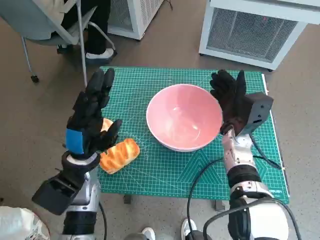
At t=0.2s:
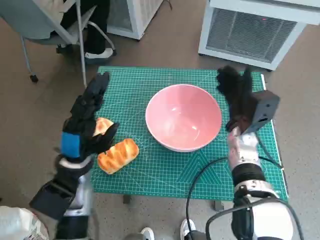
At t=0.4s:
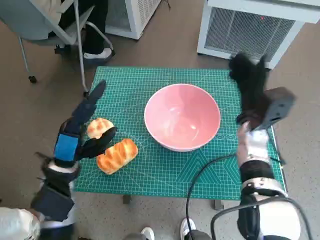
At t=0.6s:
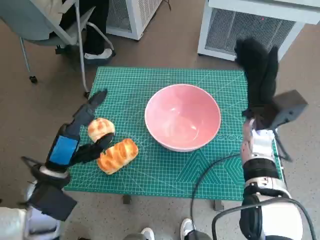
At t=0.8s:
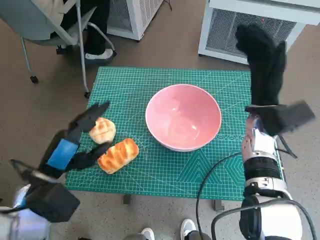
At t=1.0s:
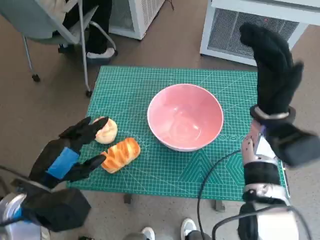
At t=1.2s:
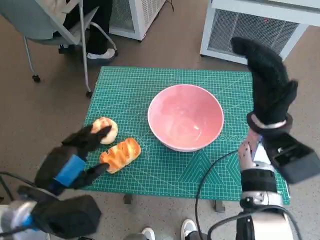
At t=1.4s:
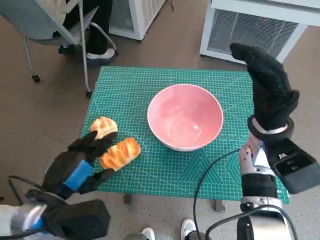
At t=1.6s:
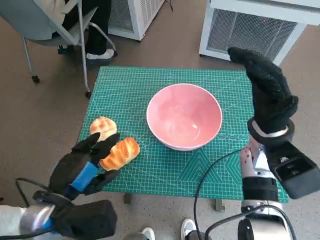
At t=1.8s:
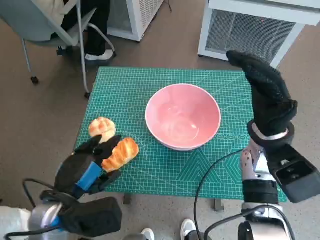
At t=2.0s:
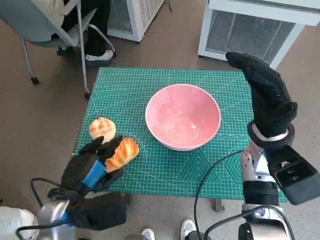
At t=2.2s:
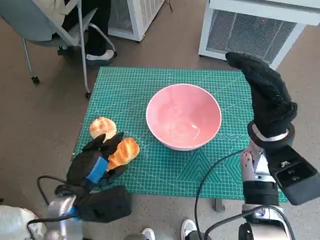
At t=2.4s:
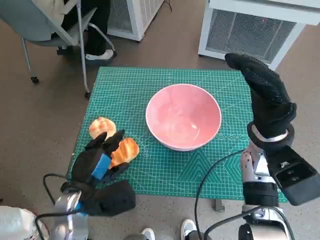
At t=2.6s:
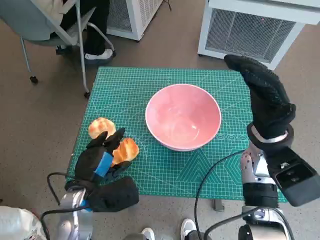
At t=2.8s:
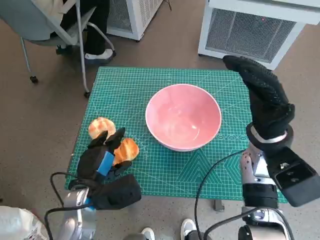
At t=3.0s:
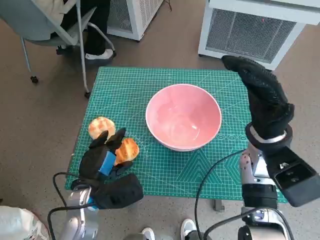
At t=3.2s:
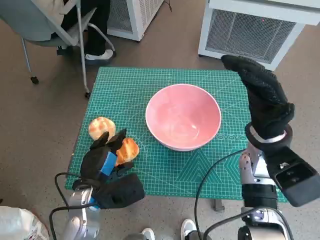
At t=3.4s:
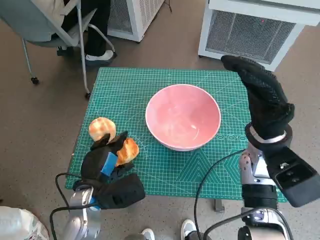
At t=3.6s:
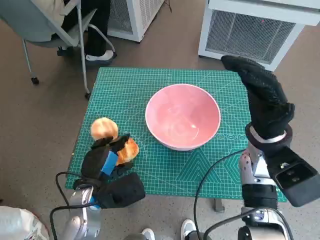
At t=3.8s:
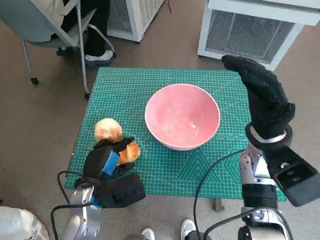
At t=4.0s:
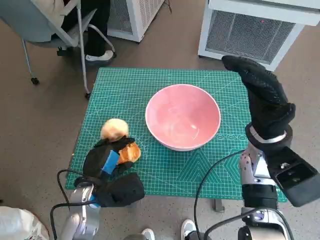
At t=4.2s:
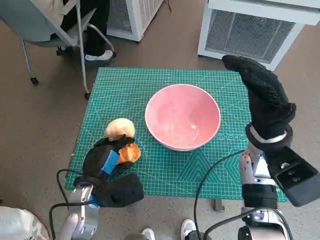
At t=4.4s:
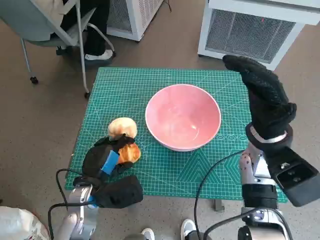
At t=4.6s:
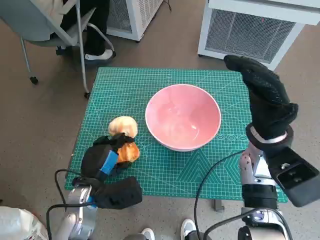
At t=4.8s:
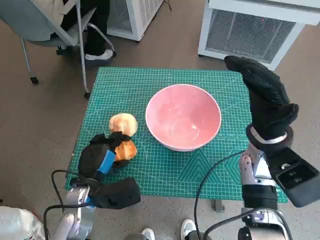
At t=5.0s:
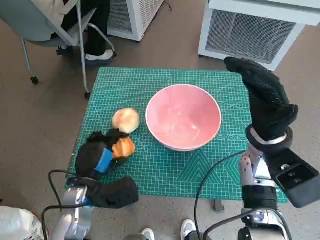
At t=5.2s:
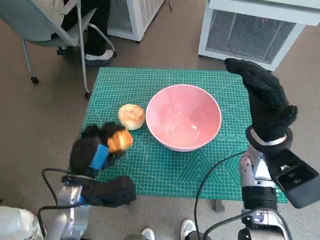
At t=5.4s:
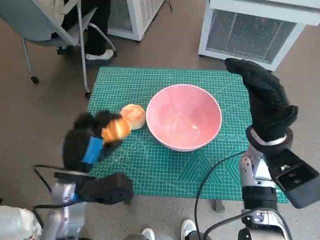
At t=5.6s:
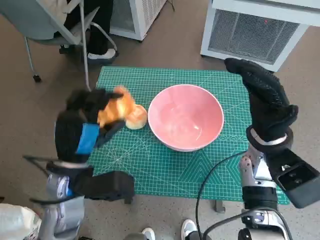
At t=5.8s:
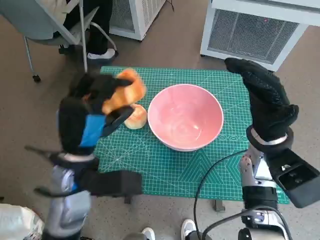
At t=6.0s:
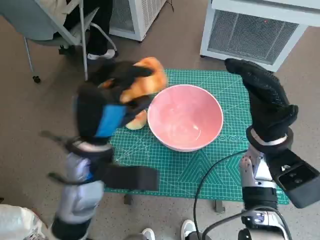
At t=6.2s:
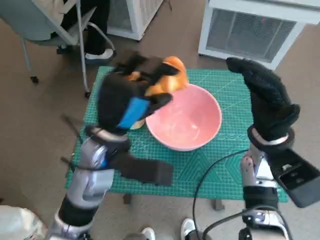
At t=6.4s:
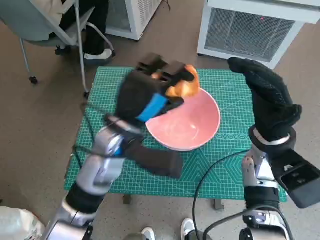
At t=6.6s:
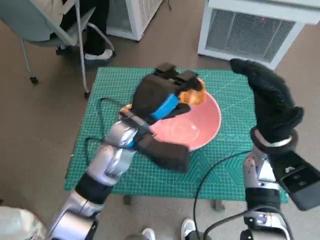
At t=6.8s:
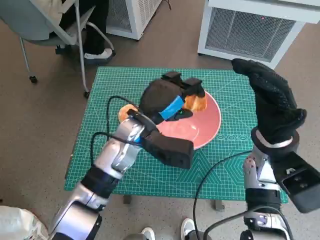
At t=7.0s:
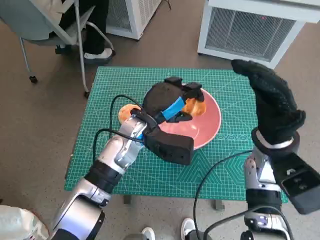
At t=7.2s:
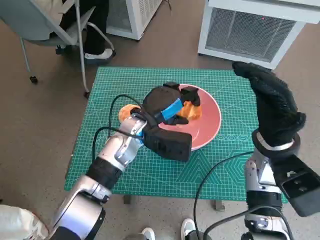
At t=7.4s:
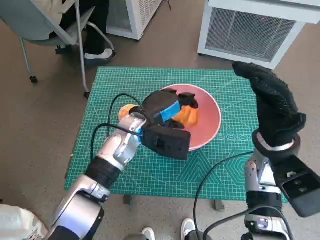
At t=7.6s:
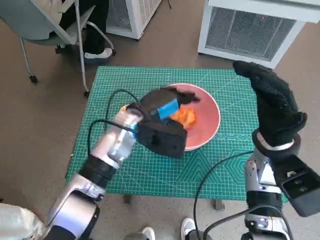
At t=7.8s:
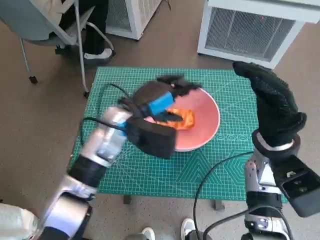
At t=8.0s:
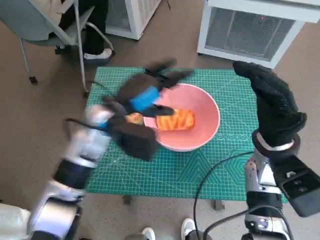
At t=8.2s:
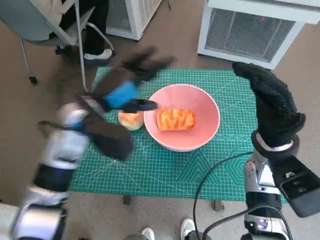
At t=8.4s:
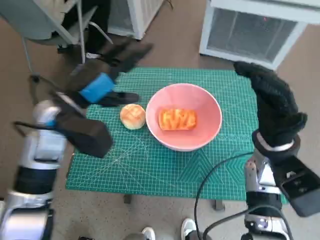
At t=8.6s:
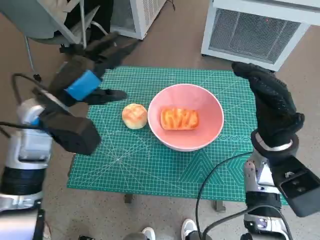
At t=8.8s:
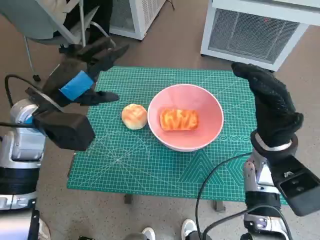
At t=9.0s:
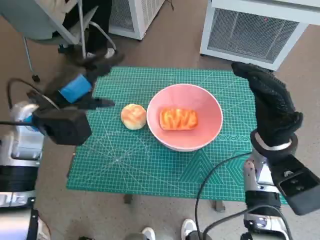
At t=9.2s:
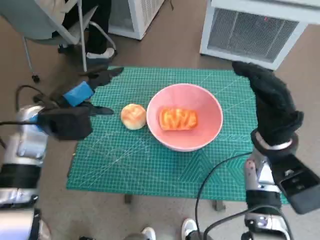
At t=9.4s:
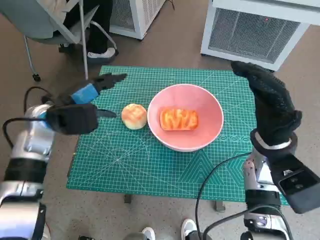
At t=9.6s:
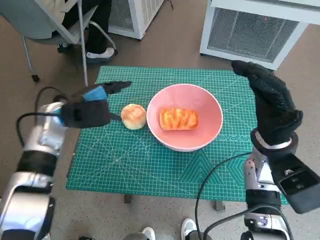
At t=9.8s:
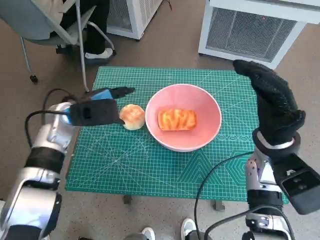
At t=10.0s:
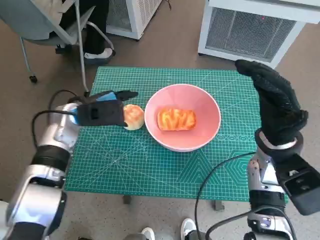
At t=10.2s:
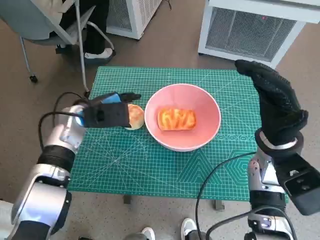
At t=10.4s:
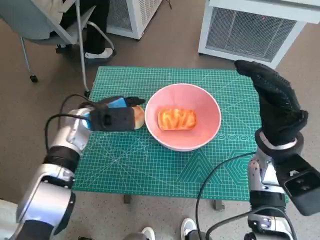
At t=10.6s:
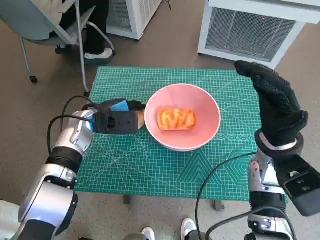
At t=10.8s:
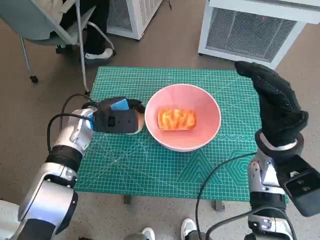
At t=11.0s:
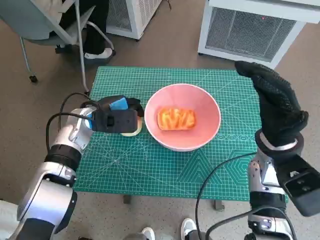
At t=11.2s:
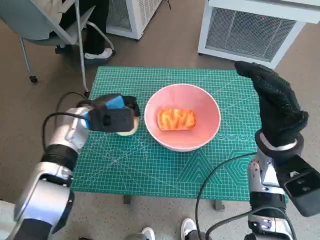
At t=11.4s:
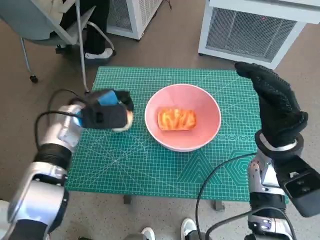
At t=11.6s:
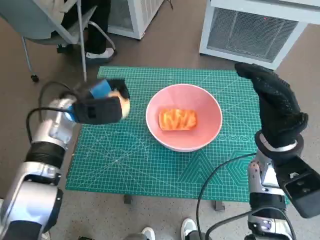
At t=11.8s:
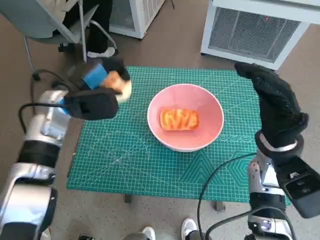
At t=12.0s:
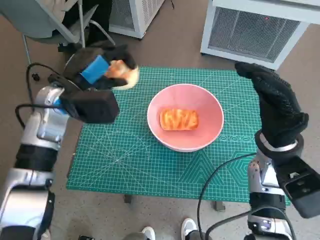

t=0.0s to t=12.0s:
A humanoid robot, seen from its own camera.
Task of the whole recording: Push the bowl to the center of the table and put the bread into the bowl.
Step, t=0.4s to t=4.0s: Grasp the long bread with left hand.
Step, t=4.4s to t=7.8s: Place the long bread in pink bowl with left hand.
Step, t=8.0s to t=10.8s: Grasp the round bread with left hand.
t=0.0s to t=1.6s: The left hand travels backward by some 10 cm; the right hand moves upward, roughly 5 cm.
t=1.6s to t=3.0s: The left hand travels downward by approximately 5 cm.
t=3.0s to t=4.4s: Both hands stay about where they are.
t=4.4s to t=6.0s: The left hand goes roughly 10 cm upward.
t=6.0s to t=7.6s: The left hand shifts some 10 cm forward and to the right.
t=7.6s to t=9.0s: The left hand goes about 15 cm to the left and upward.
t=9.0s to t=10.4s: The left hand goes about 10 cm downward.
t=10.4s to t=12.0s: The left hand is displaced upward by approximately 10 cm.

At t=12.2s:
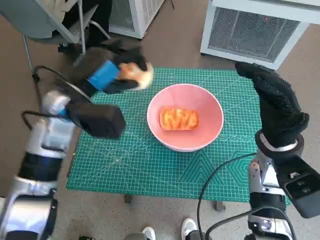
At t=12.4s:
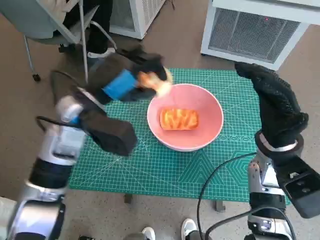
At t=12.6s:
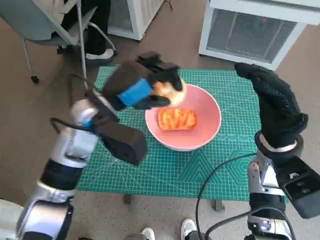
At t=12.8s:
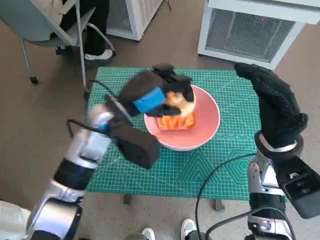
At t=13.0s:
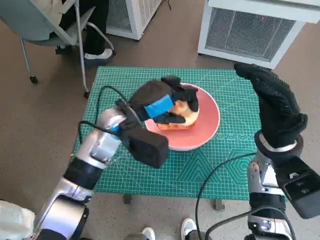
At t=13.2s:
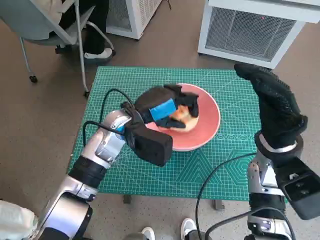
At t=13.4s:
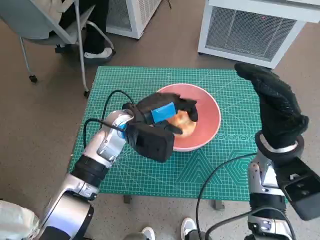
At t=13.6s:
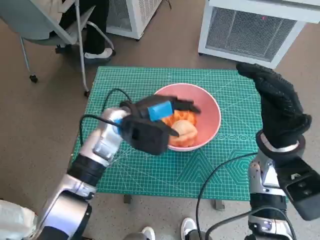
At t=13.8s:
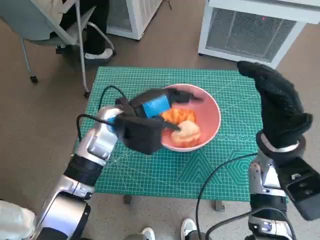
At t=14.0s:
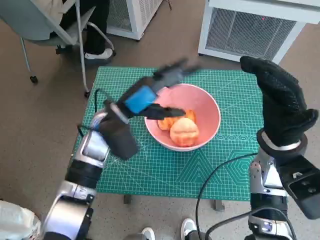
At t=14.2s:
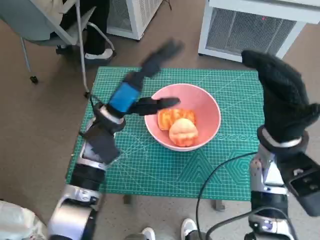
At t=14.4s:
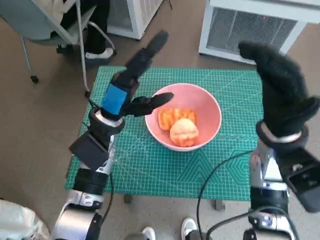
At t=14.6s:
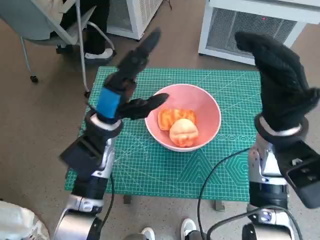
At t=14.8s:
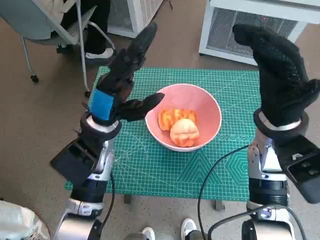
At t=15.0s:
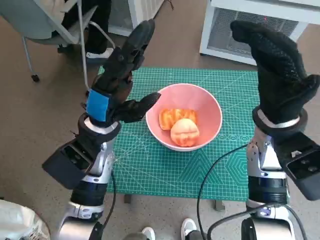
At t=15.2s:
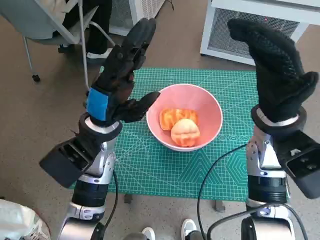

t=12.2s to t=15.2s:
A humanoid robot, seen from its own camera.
Task of the whole recording: Push the bowl to the center of the table and put the bread into the bowl.
Step, t=12.2s to t=13.6s: Place the round bread in pink bowl with left hand.
t=12.2s to t=13.8s: The left hand is displaced to the right and downward by some 10 cm.
t=13.8s to t=15.2s: The right hand moves about 5 cm.
